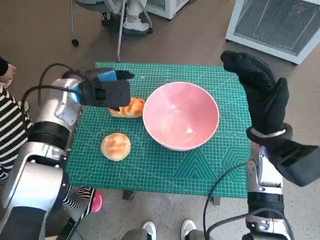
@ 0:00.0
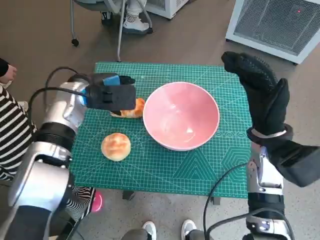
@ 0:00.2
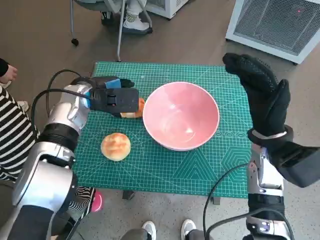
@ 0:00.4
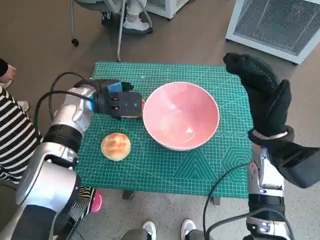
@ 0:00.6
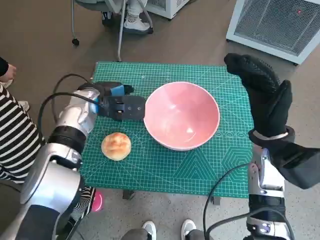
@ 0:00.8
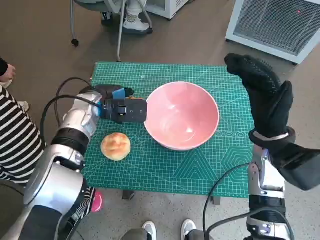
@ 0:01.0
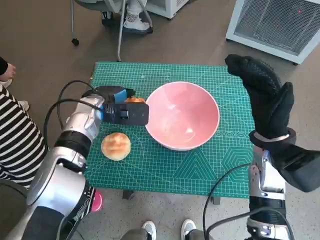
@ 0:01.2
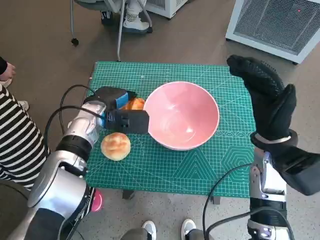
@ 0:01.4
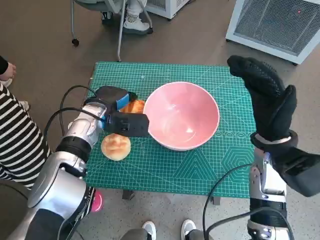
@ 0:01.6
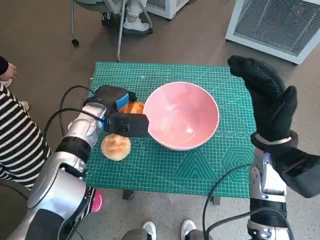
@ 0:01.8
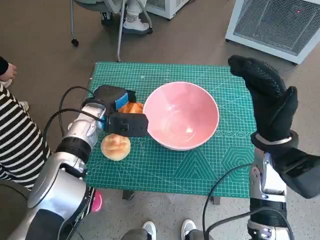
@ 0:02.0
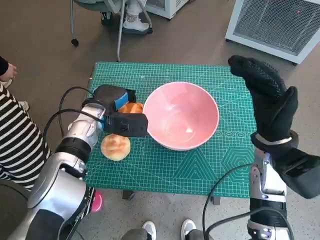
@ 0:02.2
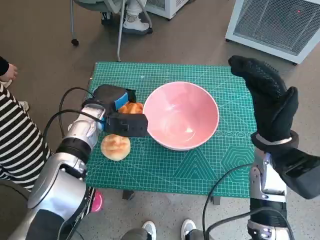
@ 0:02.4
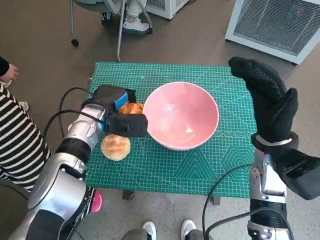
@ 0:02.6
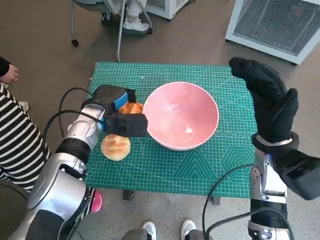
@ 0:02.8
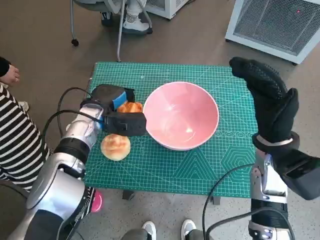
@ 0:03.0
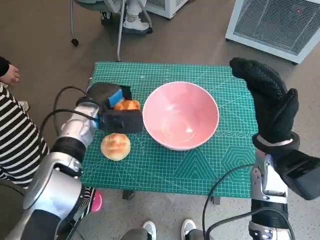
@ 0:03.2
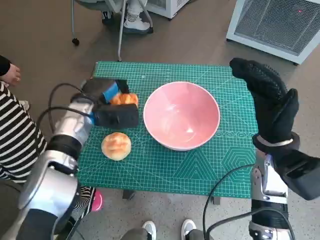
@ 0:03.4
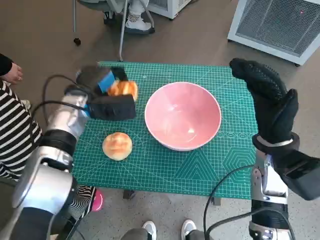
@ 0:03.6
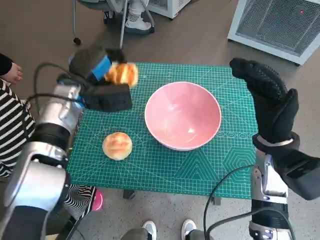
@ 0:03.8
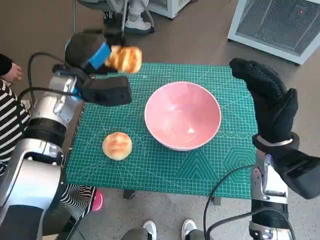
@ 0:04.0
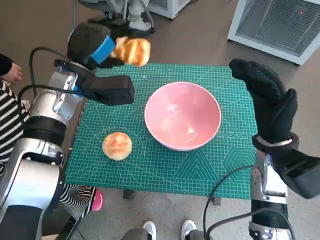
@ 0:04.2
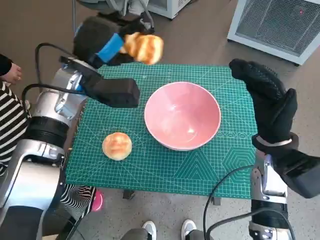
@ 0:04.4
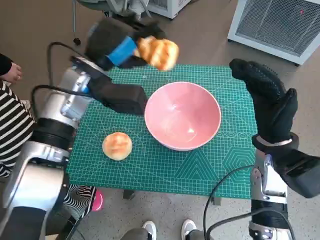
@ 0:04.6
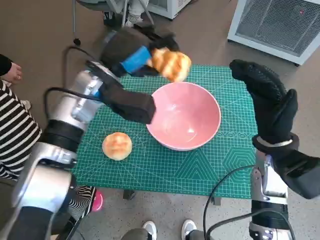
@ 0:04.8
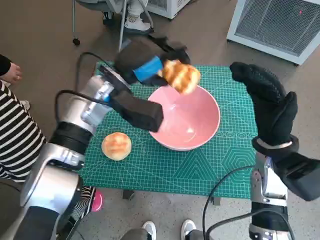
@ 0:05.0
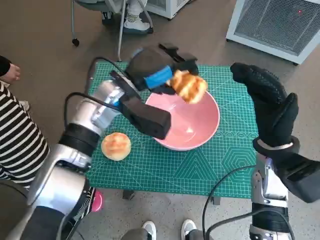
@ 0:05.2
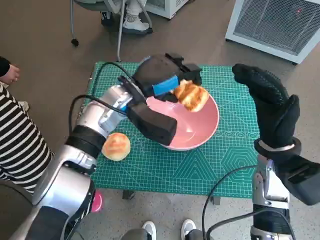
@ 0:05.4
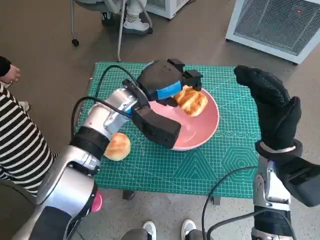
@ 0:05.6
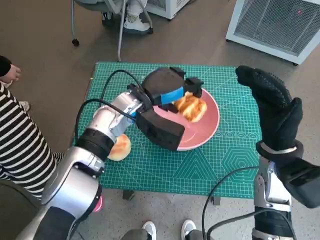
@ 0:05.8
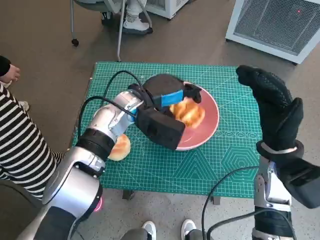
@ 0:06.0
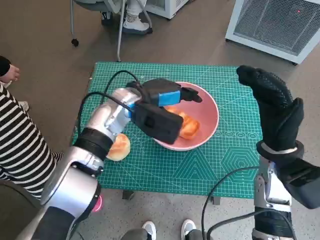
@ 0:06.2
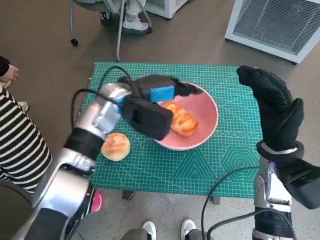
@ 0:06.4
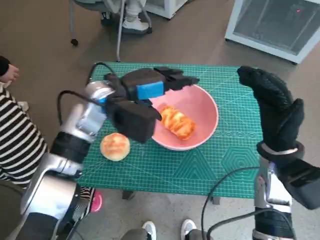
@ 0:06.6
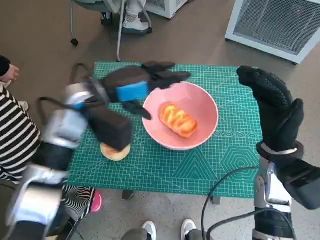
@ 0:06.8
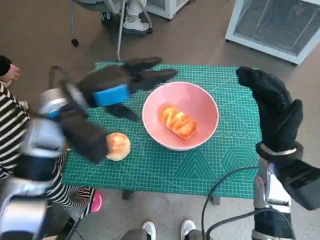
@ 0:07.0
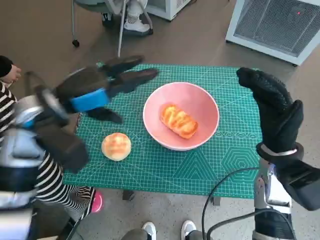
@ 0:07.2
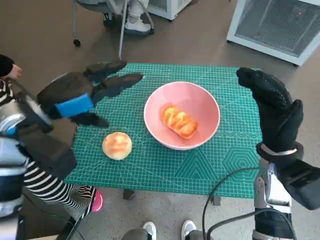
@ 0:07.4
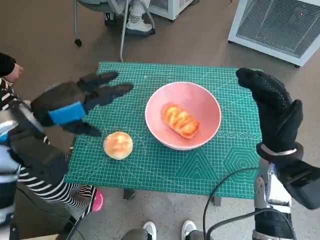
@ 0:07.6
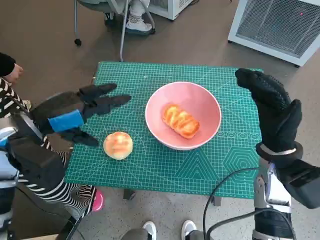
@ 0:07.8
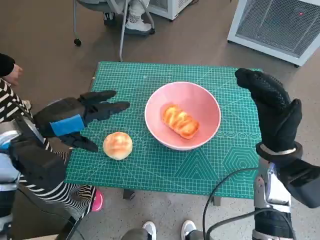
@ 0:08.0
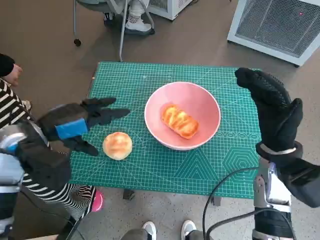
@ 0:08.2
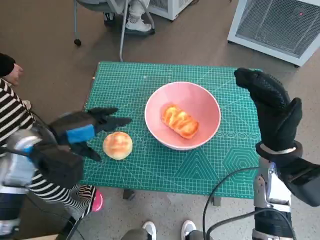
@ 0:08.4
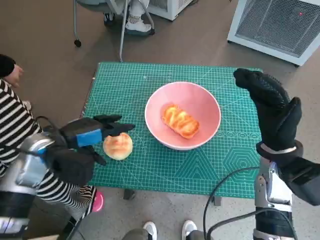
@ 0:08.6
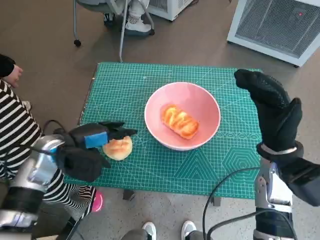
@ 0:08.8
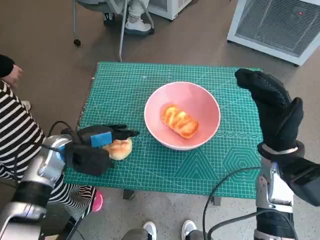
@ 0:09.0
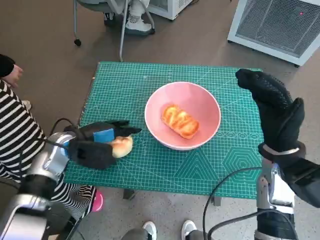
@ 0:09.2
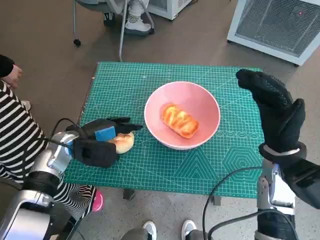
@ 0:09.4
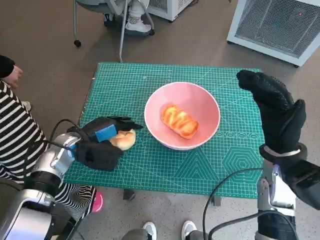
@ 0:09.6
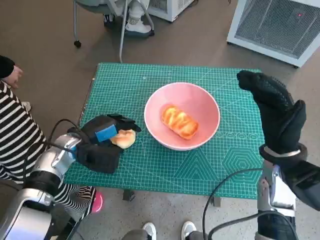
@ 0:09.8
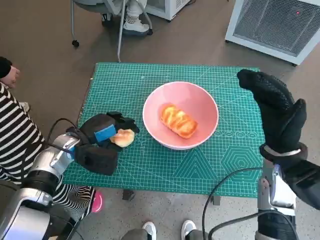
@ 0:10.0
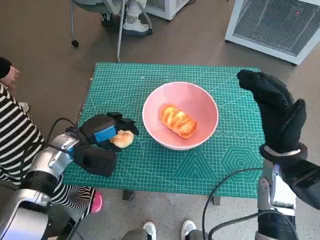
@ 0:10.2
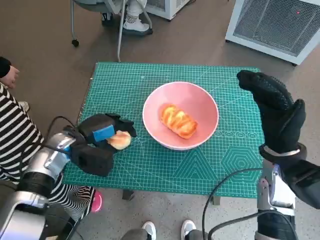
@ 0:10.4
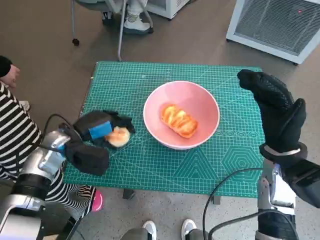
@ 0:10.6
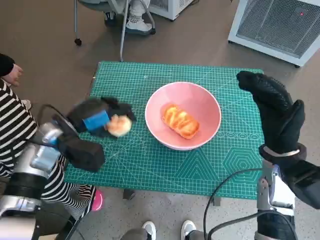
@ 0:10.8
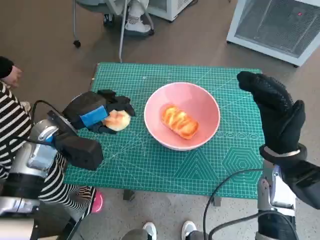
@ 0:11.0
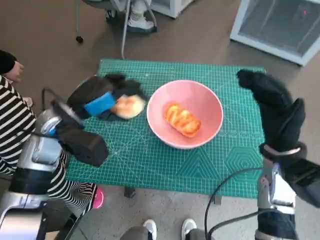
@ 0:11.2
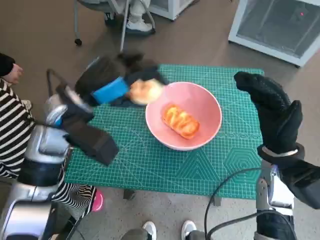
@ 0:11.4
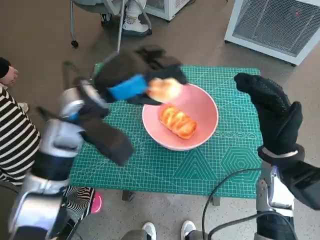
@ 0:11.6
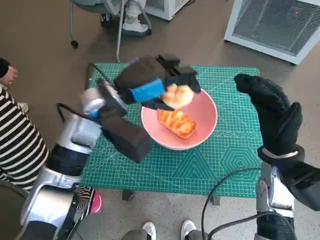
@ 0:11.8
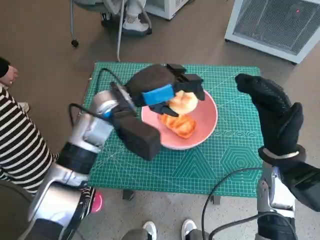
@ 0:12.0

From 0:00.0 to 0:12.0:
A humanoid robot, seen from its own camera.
Task of the whole recording: Push the bowl into the center of the table and put the bread into the bowl.
Step, from 0:00.0 to 0:02.0: Grasp the long bread with left hand.
Step, from 0:02.4 to 0:06.6: Place the long bread in pink bowl with left hand.
Step, from 0:06.8 to 0:10.2: Grasp the round bread with left hand.
From 0:00.0 to 0:01.6: The left hand shifts some 10 cm downward.
From 0:01.6 to 0:03.0: The hands make only small movements.
From 0:03.0 to 0:04.4: The left hand shifts about 10 cm upward.
From 0:04.4 to 0:06.0: The left hand travels to the right and downward by roughly 10 cm.
From 0:06.0 to 0:07.6: The left hand travels to the left and backward by about 20 cm.
From 0:07.6 to 0:09.0: The left hand goes roughly 10 cm downward.
From 0:09.0 to 0:10.4: The hands make only small movements.
From 0:10.4 to 0:12.0: The left hand goes about 15 cm to the right and upward.

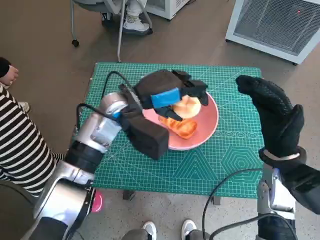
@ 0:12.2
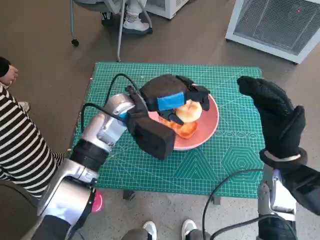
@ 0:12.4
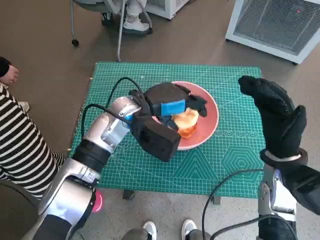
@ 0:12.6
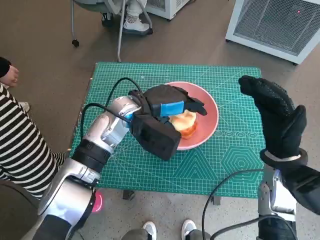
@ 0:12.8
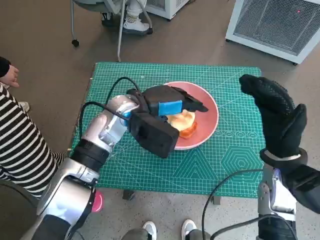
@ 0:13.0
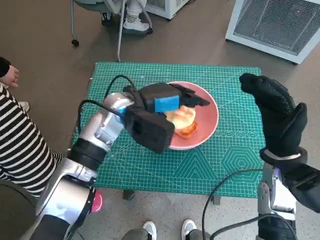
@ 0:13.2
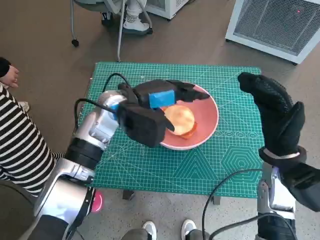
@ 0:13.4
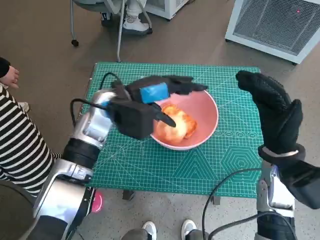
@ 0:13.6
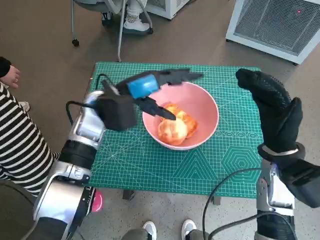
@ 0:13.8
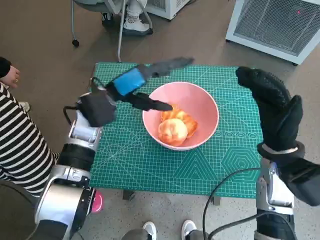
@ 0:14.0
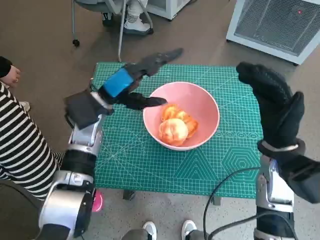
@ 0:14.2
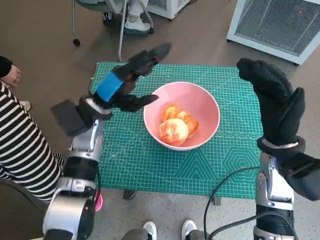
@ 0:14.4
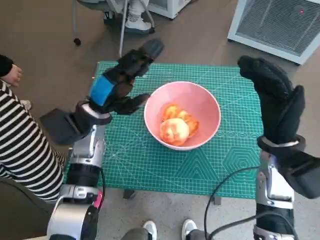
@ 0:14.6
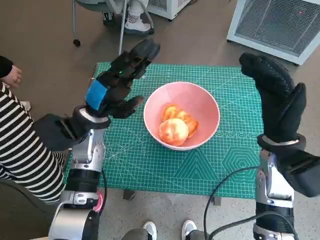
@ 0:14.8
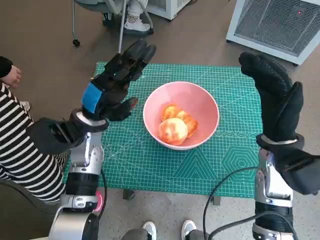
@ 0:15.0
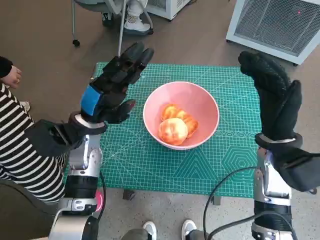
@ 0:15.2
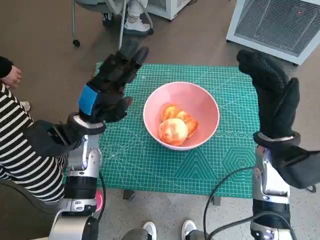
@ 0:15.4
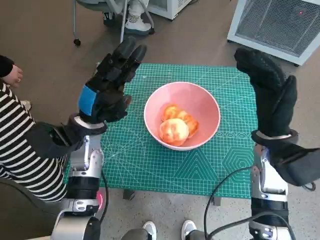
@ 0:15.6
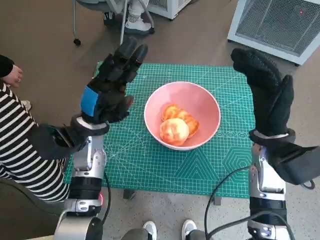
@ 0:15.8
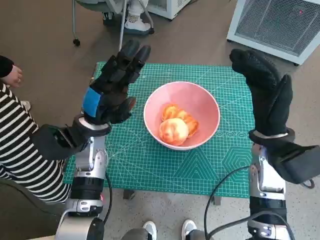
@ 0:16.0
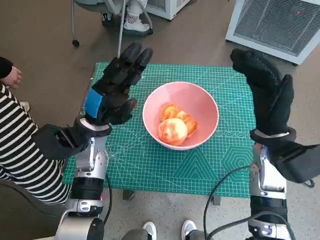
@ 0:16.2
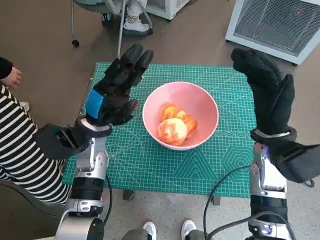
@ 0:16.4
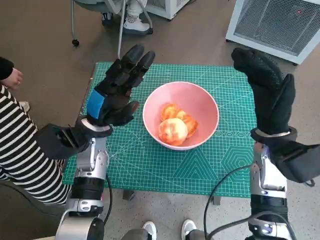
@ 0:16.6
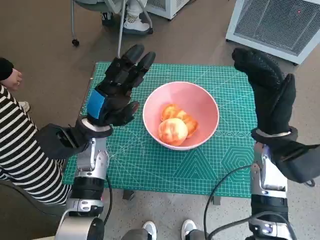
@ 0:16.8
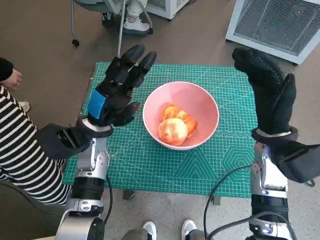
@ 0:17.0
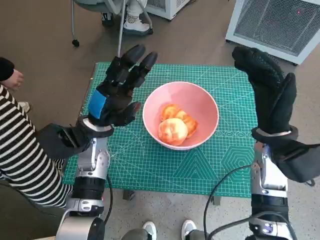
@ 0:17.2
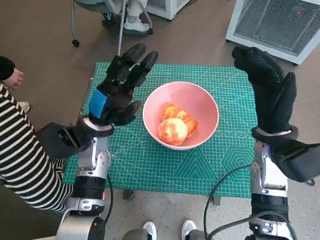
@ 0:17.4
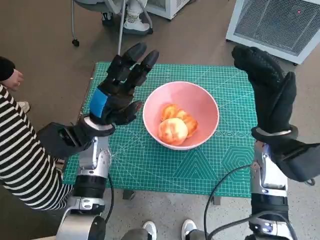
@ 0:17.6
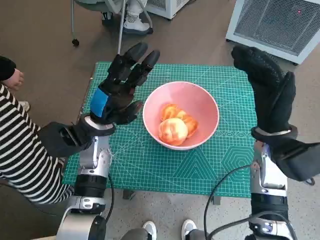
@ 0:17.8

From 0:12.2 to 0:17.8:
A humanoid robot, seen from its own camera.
Task of the whole recording: Push the bowl into the center of the table and put the bread into the bowl.
From 0:12.2 to 0:13.6: The hands make only small movements.
From 0:13.6 to 0:15.0: The left hand is displaced to the left by roughly 5 cm.
From 0:15.0 to 0:16.4: The hands move only a little.
From 0:16.4 to 0:17.8: Both hands stay about where they are.
